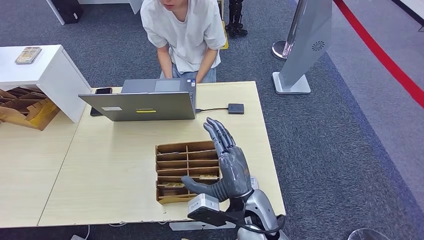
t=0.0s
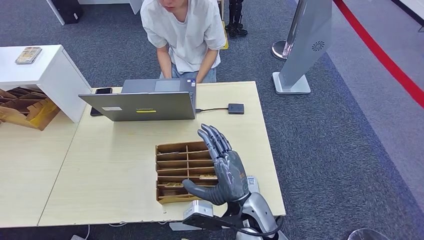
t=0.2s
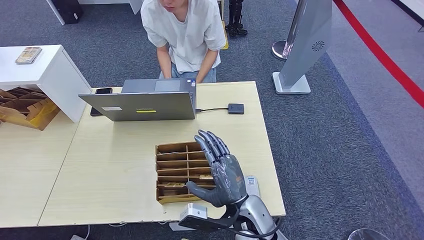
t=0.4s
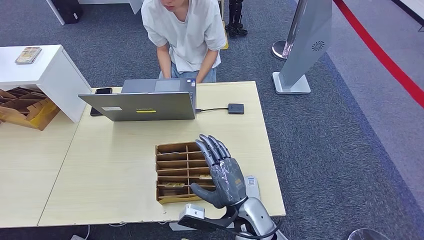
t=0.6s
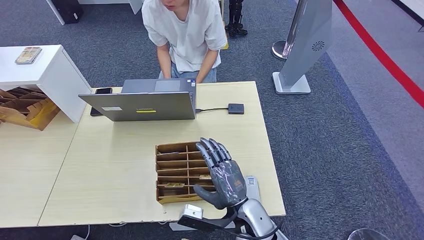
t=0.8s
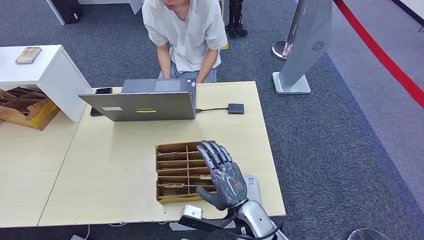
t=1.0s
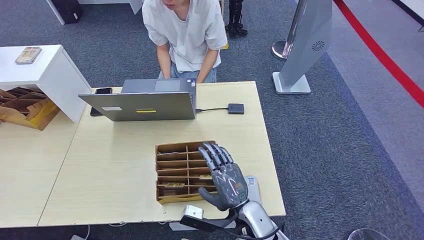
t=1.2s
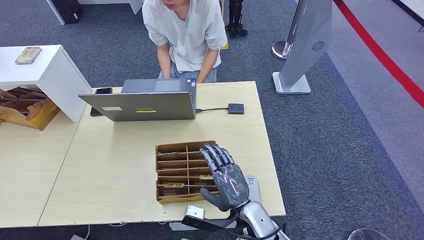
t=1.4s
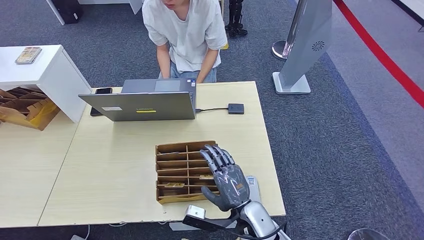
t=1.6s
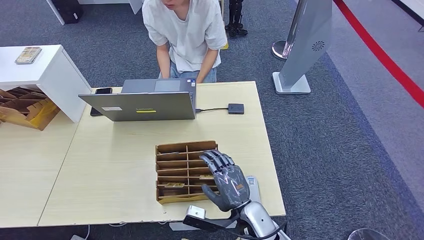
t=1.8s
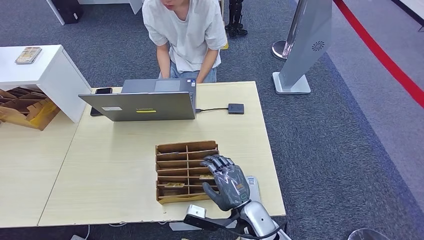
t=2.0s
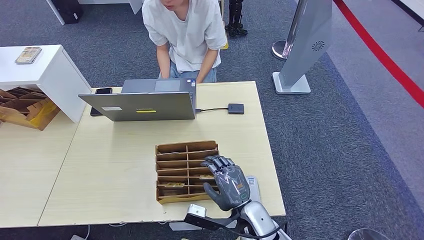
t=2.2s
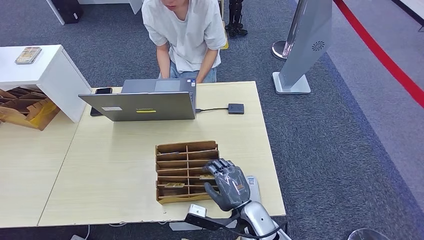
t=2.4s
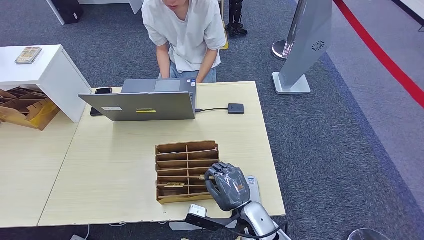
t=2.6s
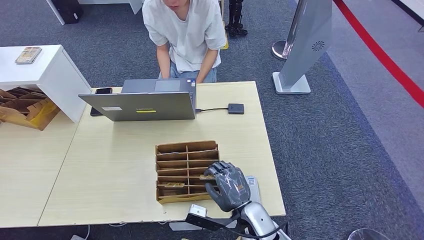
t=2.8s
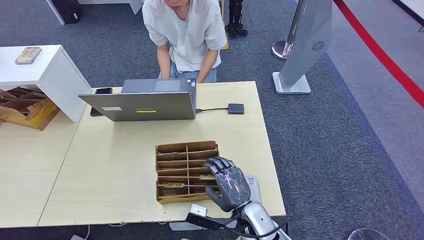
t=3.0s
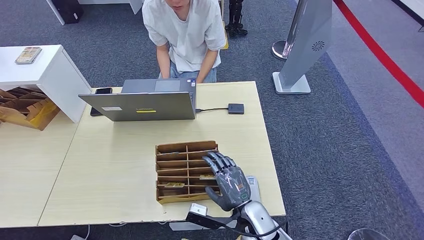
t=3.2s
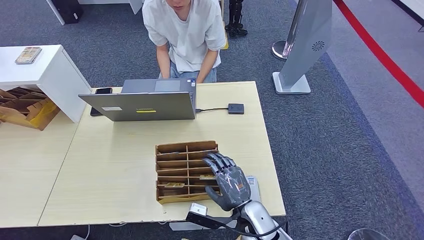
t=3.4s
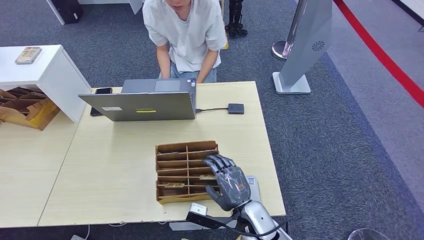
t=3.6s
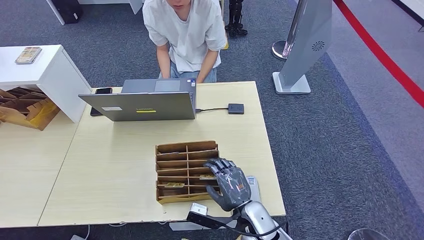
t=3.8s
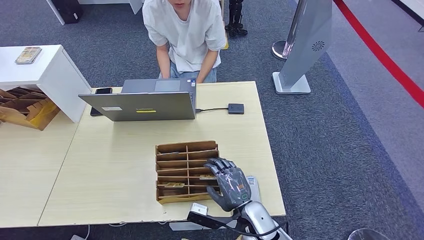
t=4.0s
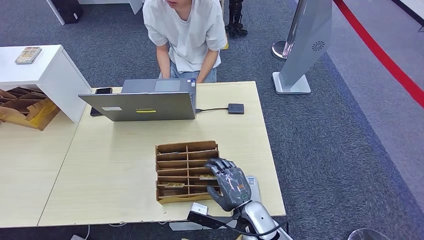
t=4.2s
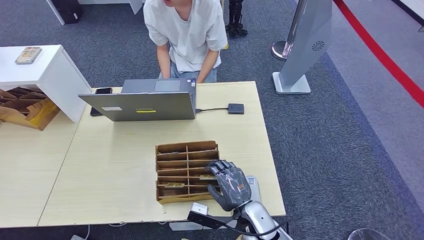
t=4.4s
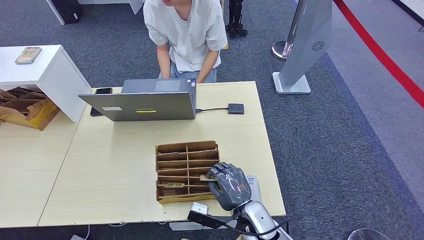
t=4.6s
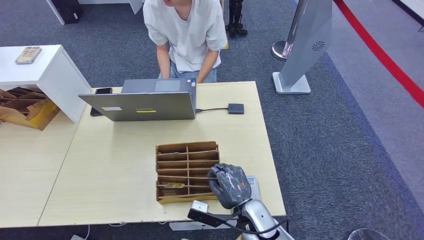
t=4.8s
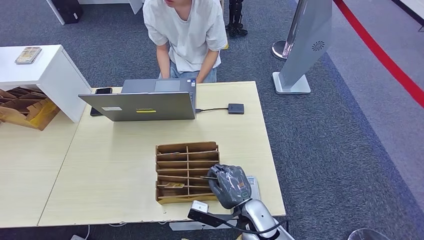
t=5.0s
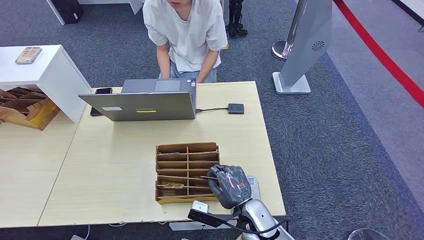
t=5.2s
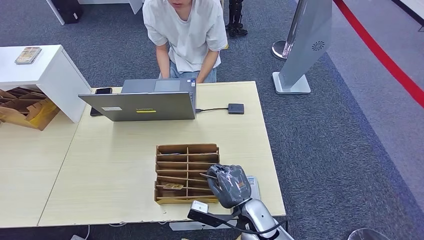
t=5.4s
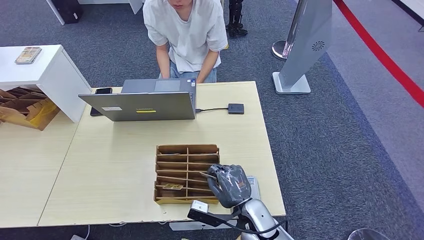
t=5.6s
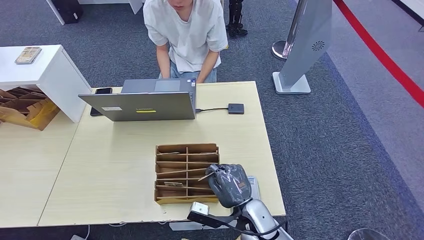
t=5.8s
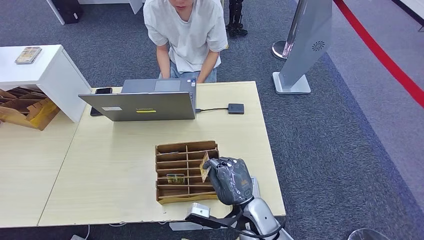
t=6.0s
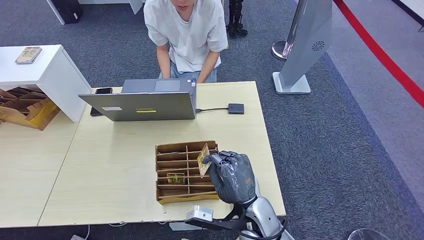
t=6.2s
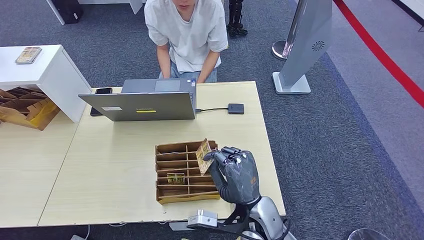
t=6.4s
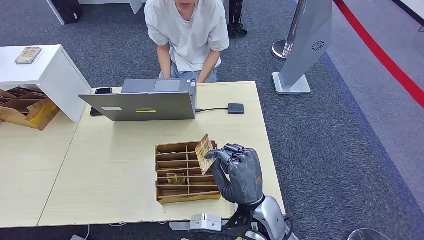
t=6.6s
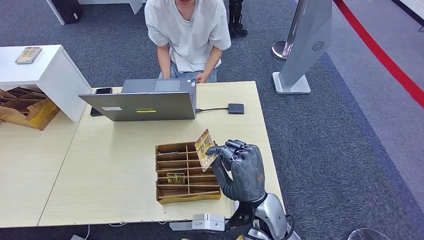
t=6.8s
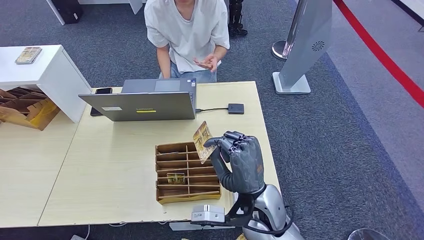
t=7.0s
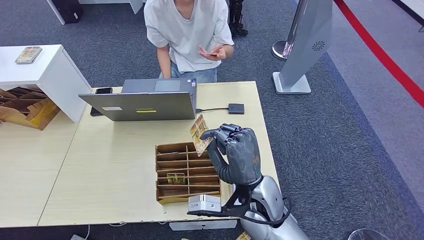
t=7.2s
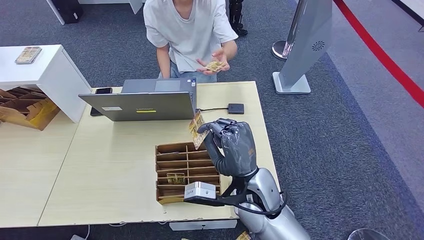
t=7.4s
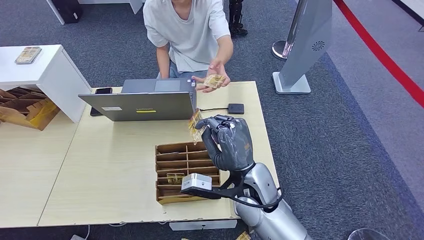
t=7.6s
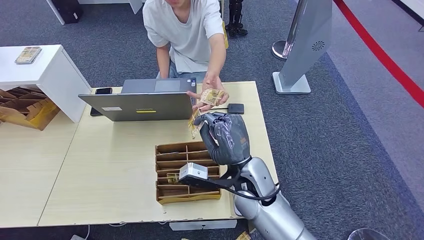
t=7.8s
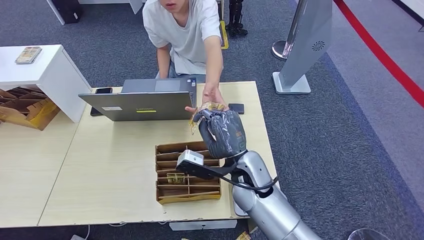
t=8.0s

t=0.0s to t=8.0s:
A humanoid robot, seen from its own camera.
Step, t=0.0s to t=6.2s: Pick up the room key from the key card box.
Step, t=6.4s to t=8.0s: Hand the room key to the person.
t=0.0s to t=1.6s: The right hand moves downward, some 5 cm.
t=1.6s to t=3.2s: There are only small adjustments of the hands.
t=3.2s to t=4.8s: Both hands stay put.
t=4.8s to t=6.4s: The right hand goes approximately 10 cm upward.
t=6.4s to t=8.0s: The right hand moves forward, approximately 10 cm.

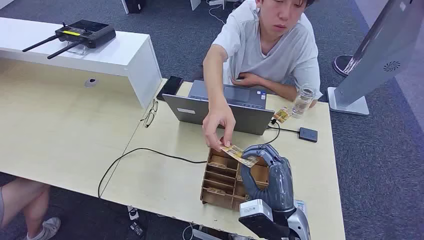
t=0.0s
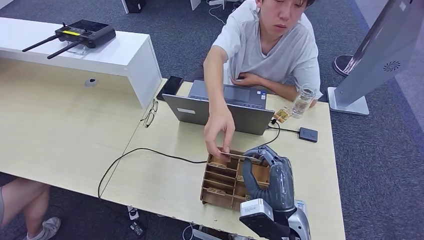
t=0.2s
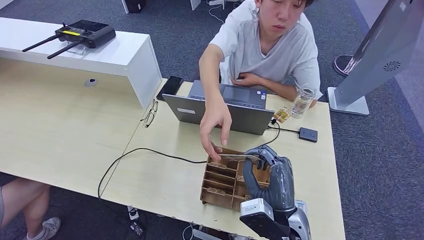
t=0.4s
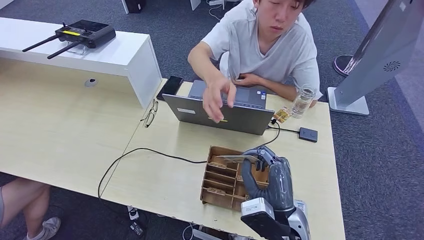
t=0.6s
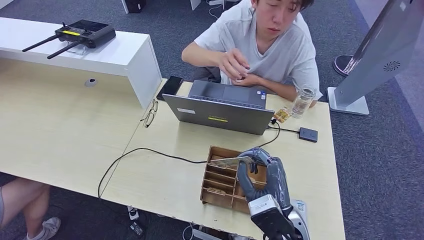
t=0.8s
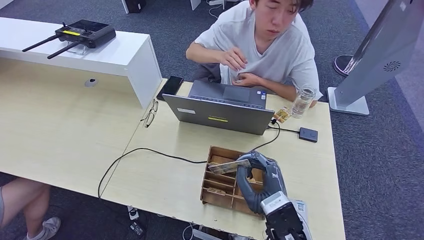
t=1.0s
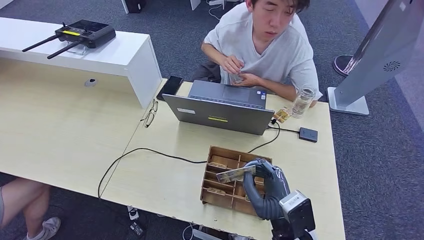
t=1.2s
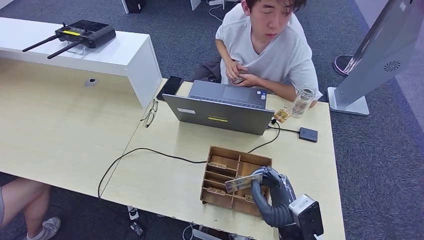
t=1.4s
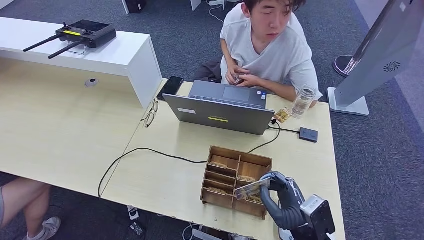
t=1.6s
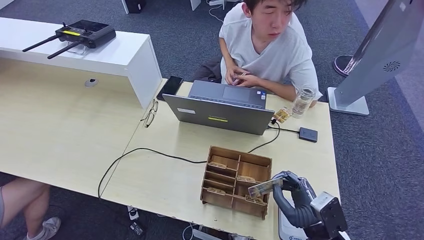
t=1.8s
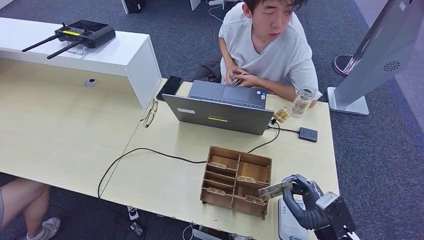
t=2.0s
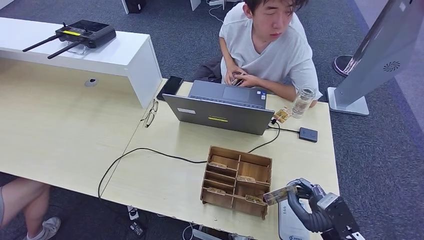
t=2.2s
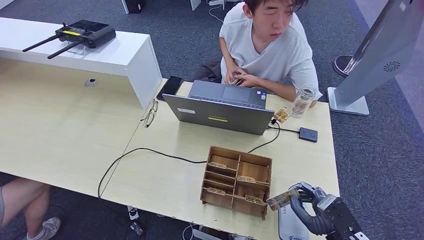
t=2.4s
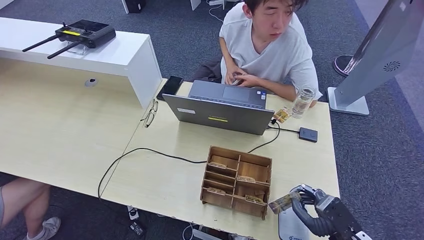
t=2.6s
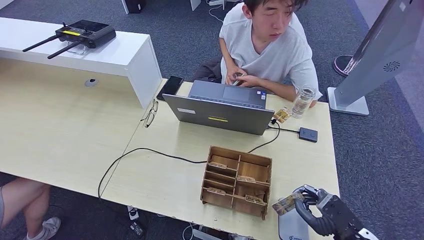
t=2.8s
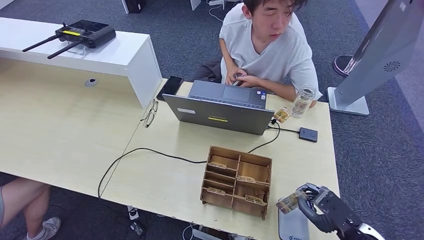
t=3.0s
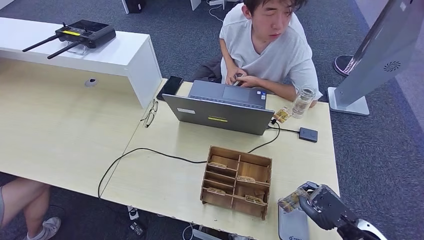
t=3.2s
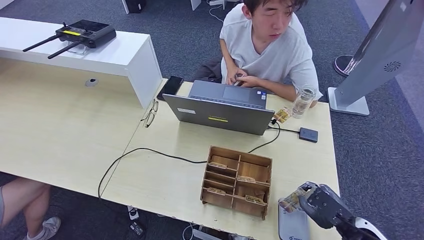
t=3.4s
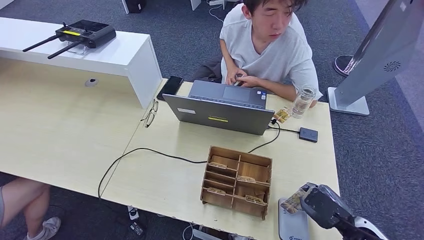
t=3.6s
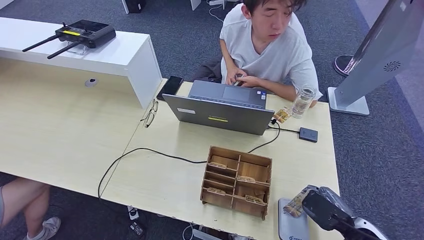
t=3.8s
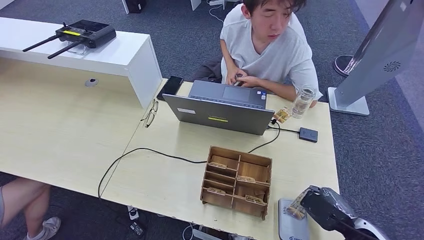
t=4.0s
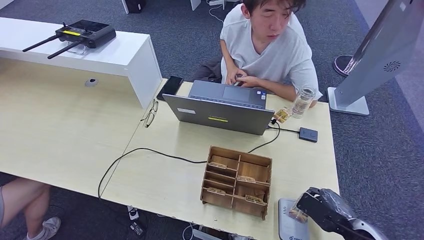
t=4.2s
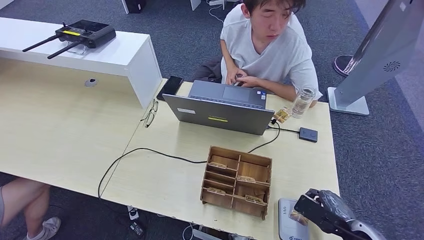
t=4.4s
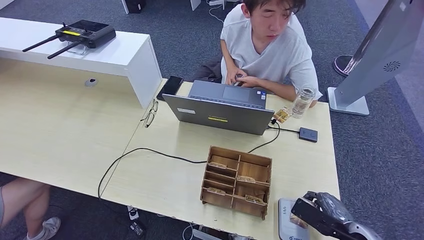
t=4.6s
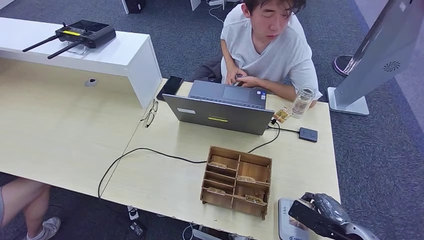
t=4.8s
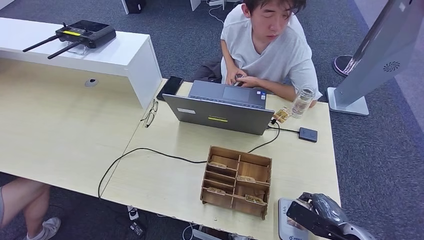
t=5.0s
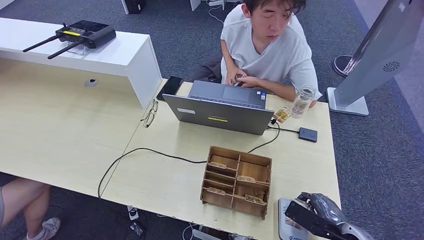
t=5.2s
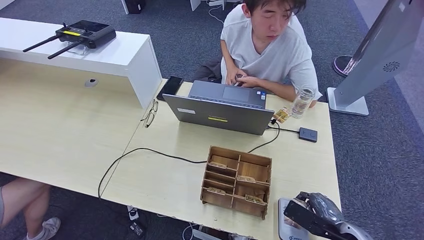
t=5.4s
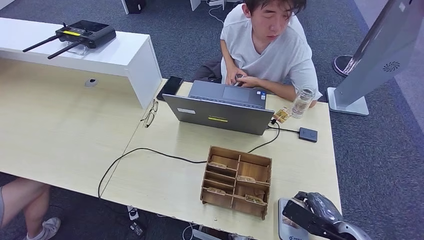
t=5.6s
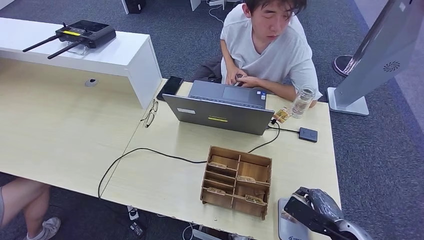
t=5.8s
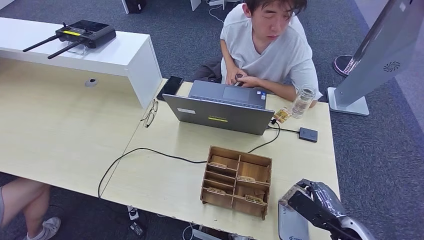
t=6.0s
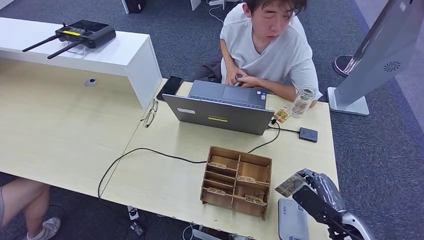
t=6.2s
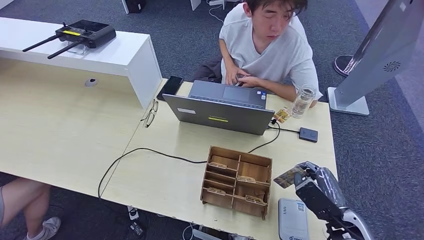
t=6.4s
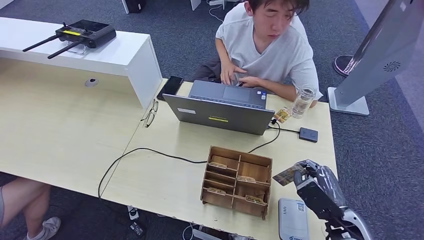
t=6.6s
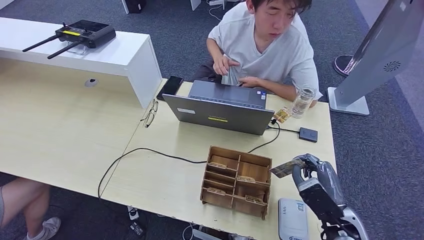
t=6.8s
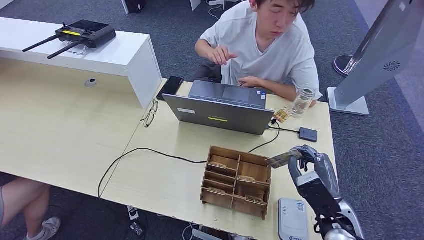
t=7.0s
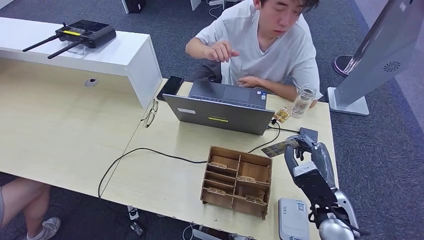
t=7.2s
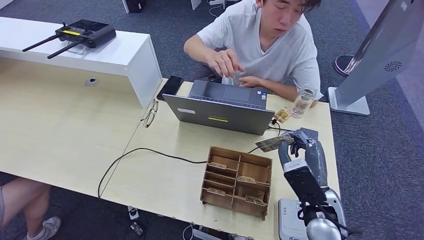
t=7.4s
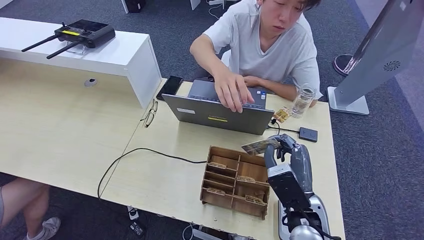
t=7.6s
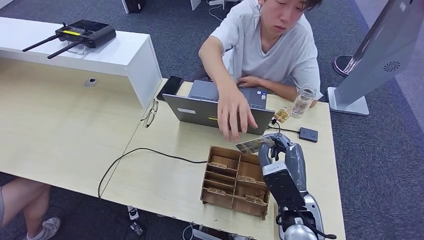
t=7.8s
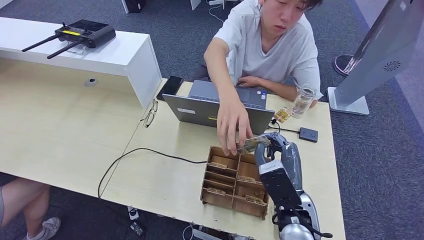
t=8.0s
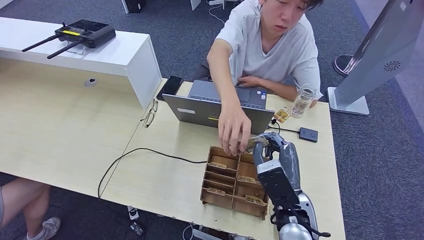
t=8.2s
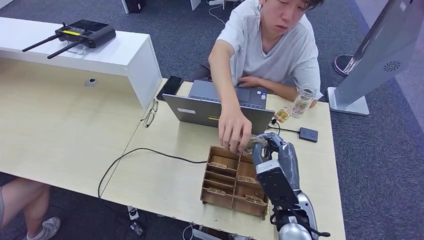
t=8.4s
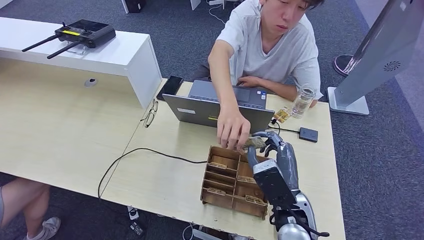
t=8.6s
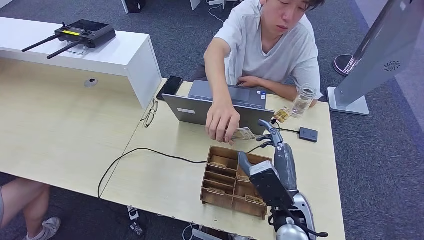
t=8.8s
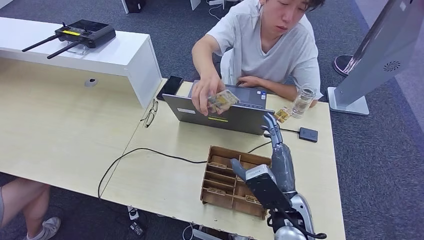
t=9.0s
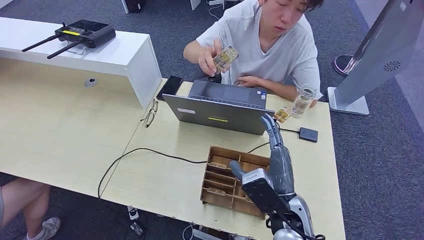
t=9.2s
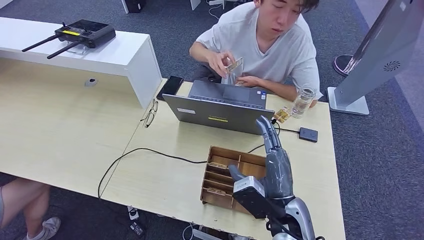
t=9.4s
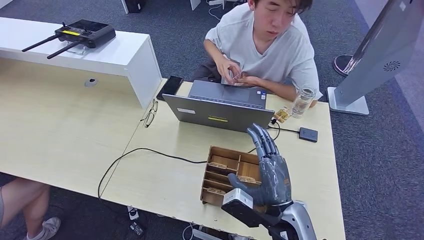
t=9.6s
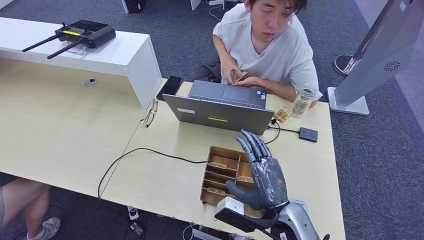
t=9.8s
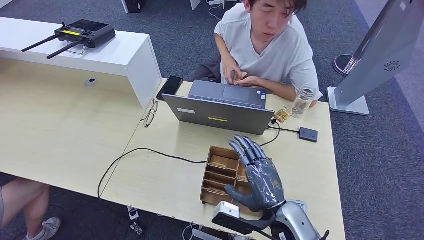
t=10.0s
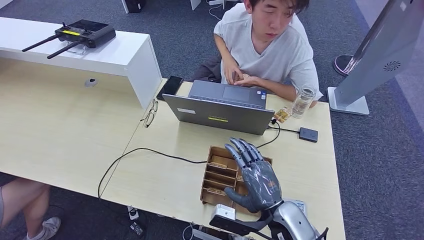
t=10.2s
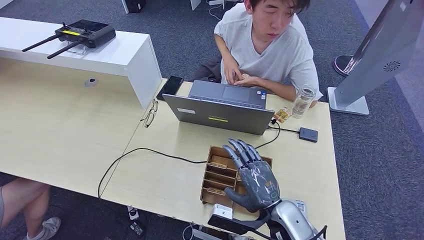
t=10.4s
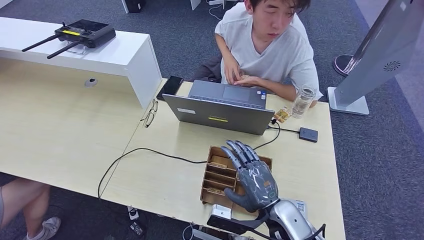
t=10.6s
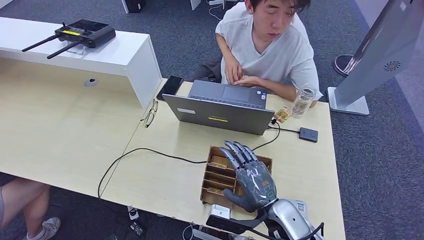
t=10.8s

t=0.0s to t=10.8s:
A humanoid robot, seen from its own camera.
Step, t=0.0s to t=1.0s: Take the ID card from the person's hand.
Step, t=1.4s to t=6.6s: Place the ID card on the card reader.
Step, t=6.8s to t=9.4s: Hand the ID card to the person.
t=1.6s to t=3.0s: The right hand goes about 15 cm to the right.
t=6.2s to t=7.8s: The right hand is displaced to the left by about 15 cm.
t=7.8s to t=9.2s: The hands stay close to where they were, moving slightly.
